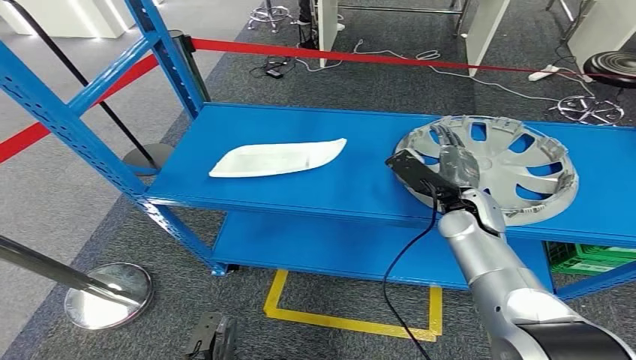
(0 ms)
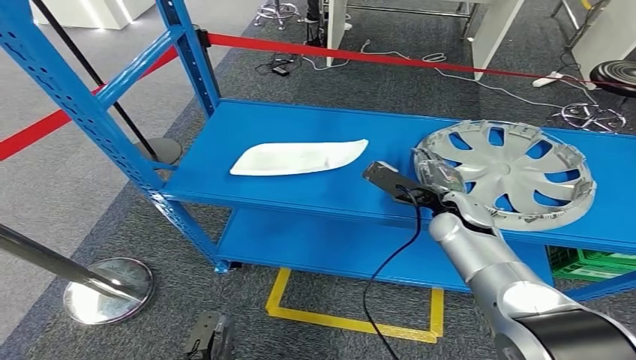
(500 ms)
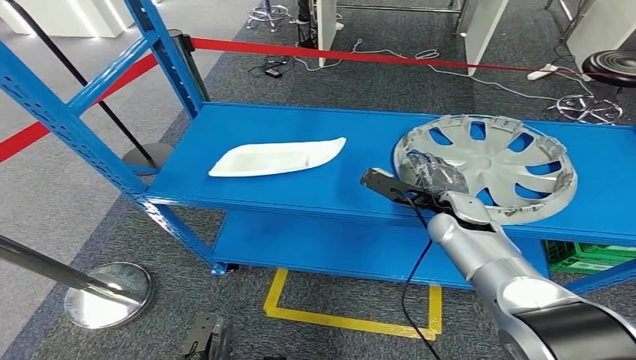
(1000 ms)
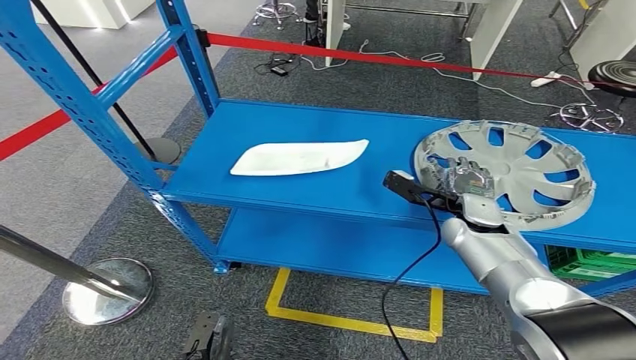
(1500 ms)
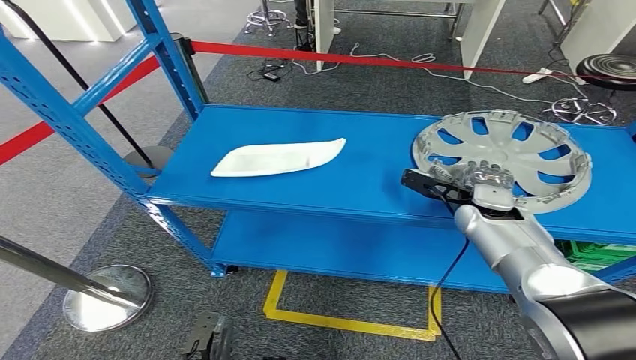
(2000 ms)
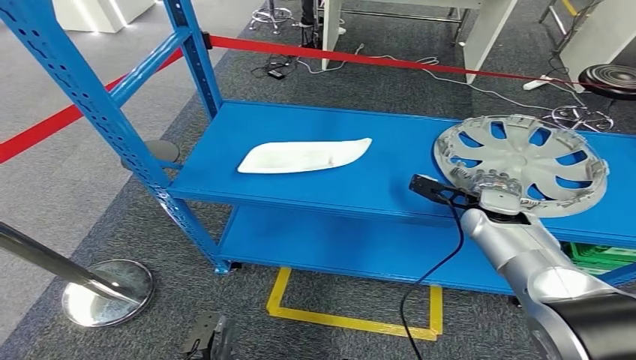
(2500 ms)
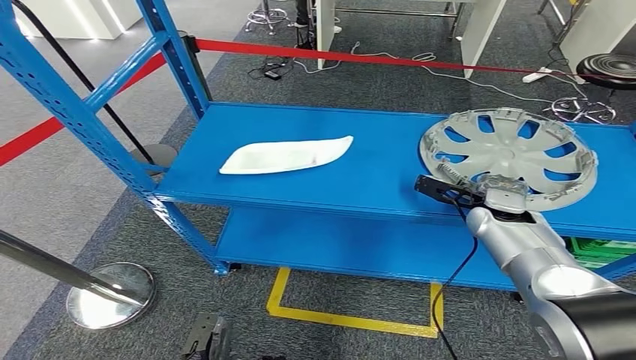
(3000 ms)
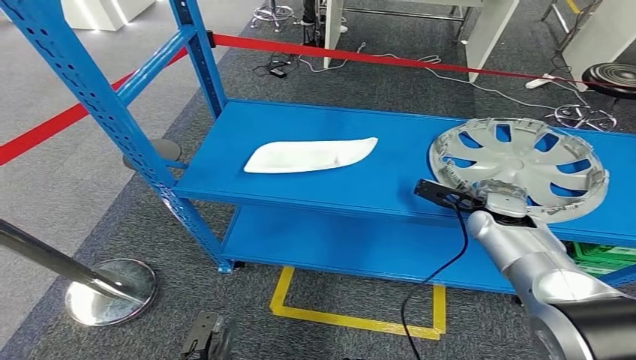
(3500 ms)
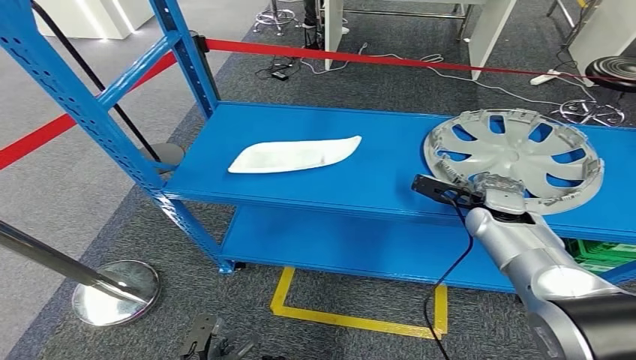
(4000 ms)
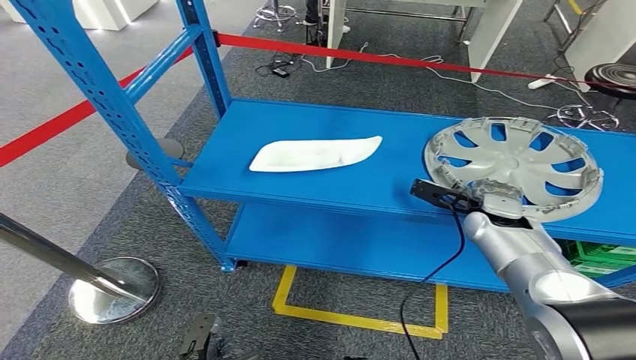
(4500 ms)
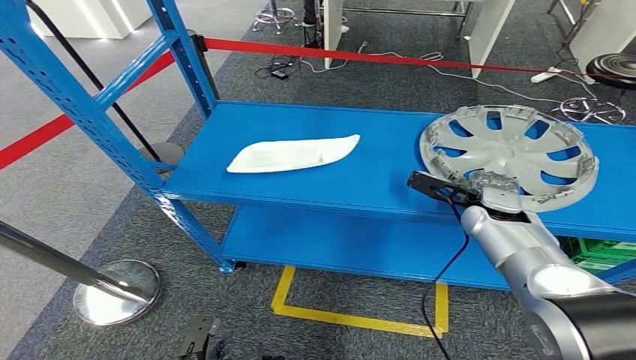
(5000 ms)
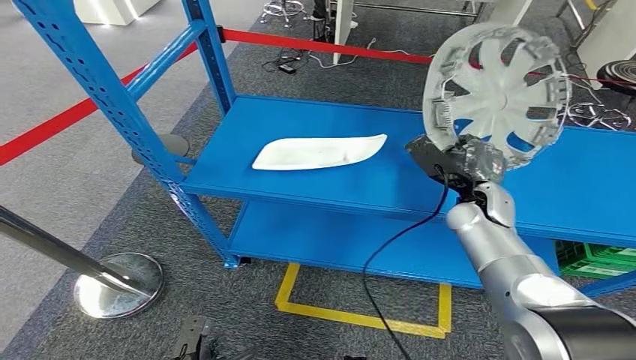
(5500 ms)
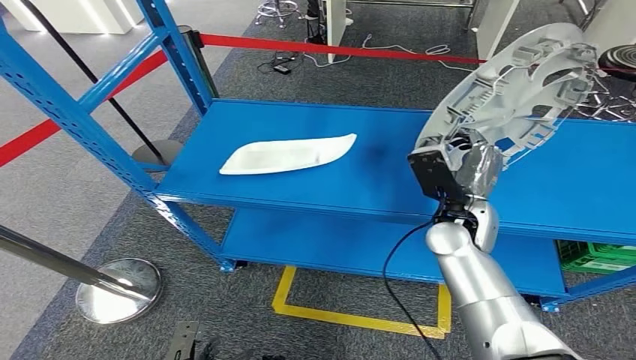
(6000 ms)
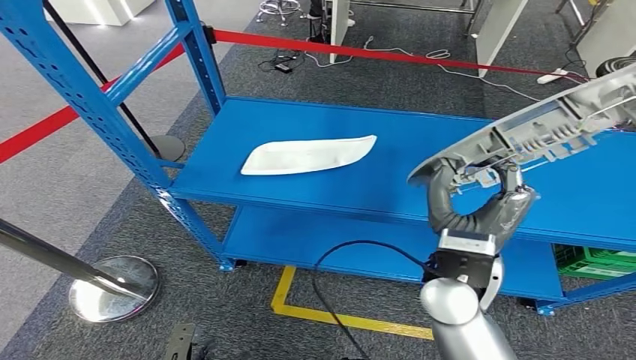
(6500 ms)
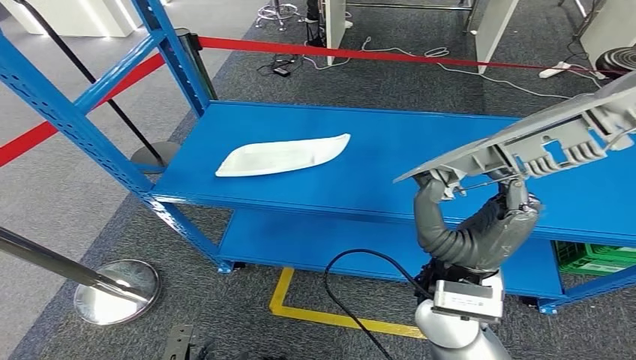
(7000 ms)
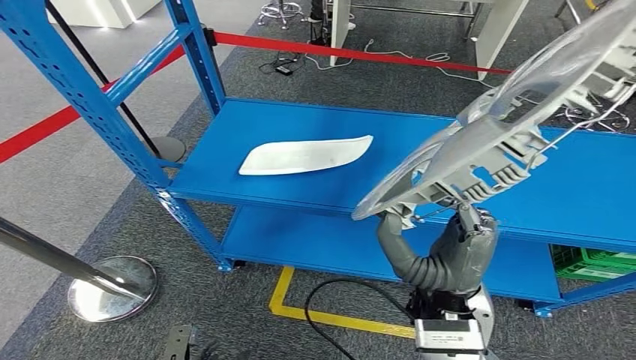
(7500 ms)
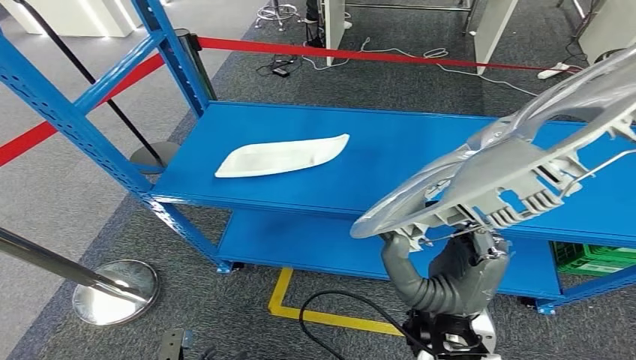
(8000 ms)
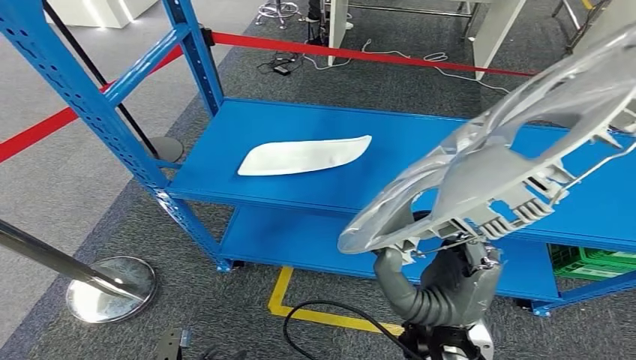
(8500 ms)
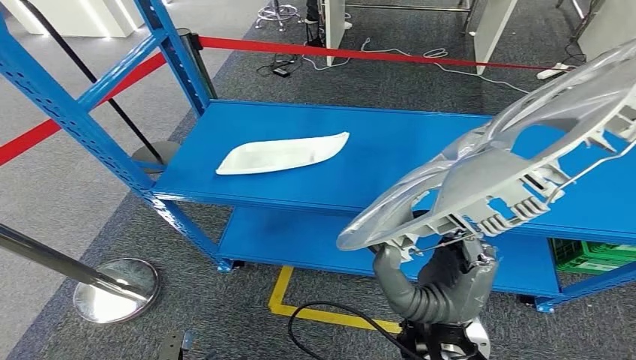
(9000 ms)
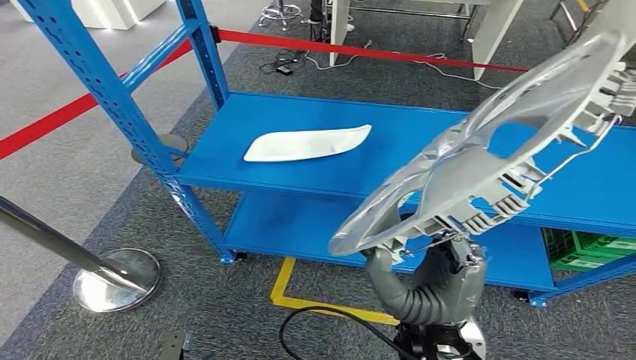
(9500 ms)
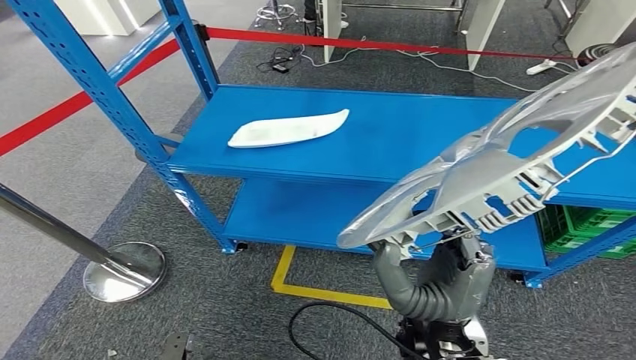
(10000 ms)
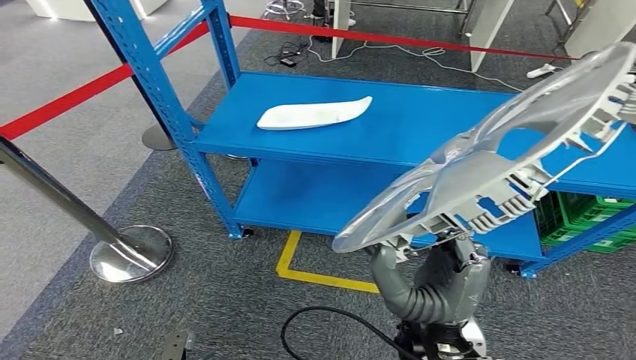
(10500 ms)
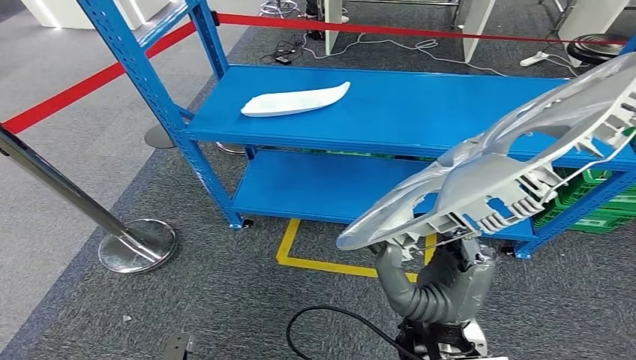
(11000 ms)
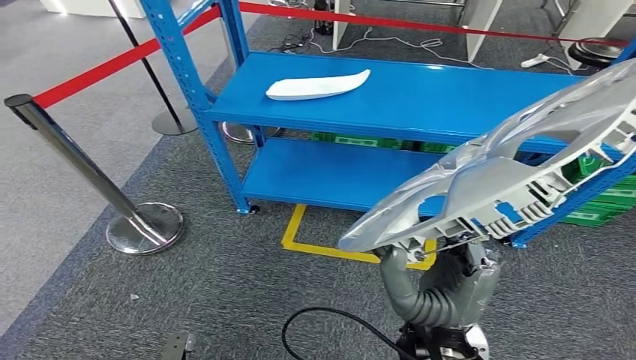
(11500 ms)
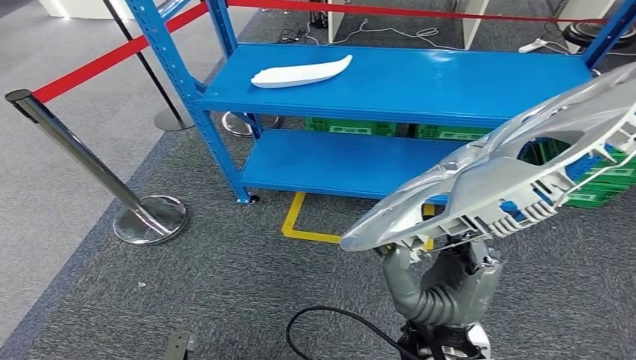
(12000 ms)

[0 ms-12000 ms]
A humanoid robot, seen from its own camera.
Step, 0 ms to 7000 ms: Pick up the small component from the shelf.

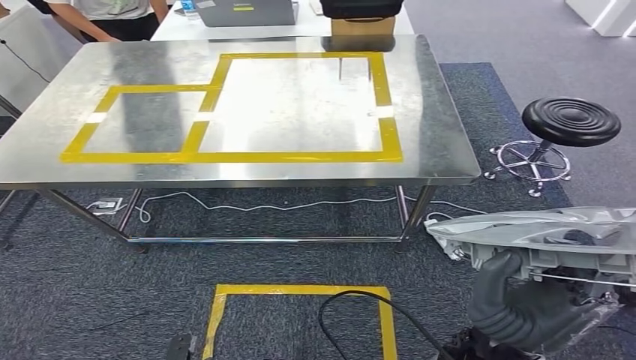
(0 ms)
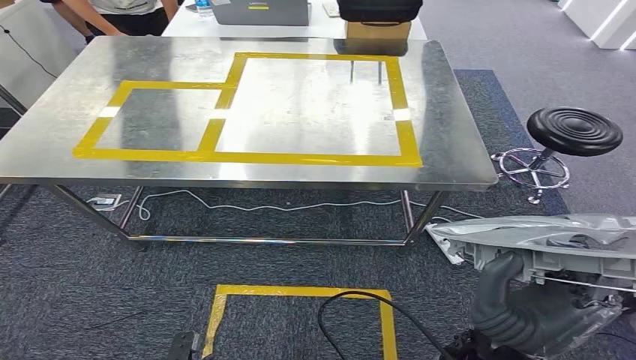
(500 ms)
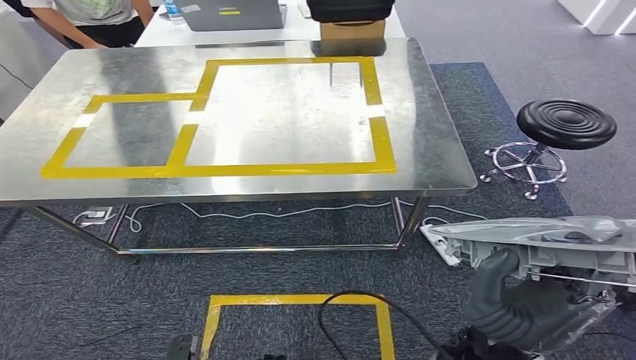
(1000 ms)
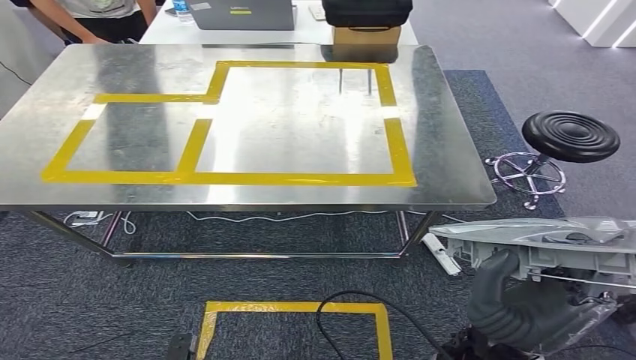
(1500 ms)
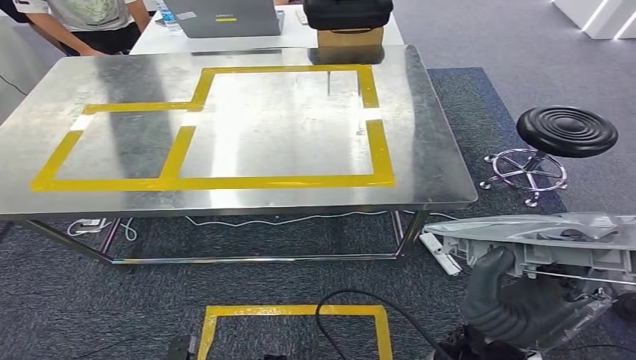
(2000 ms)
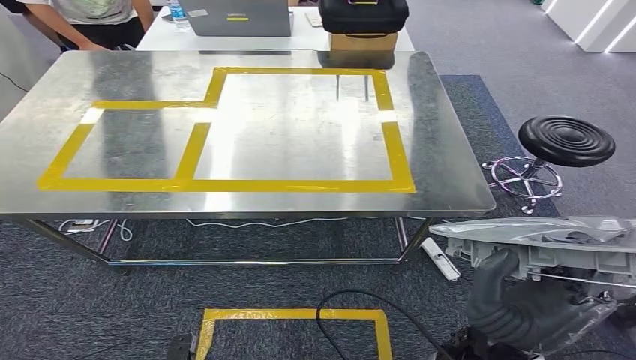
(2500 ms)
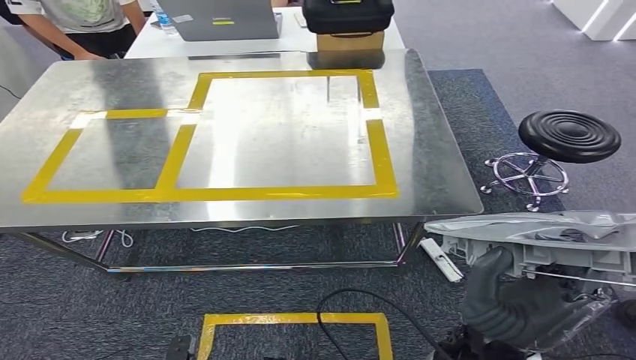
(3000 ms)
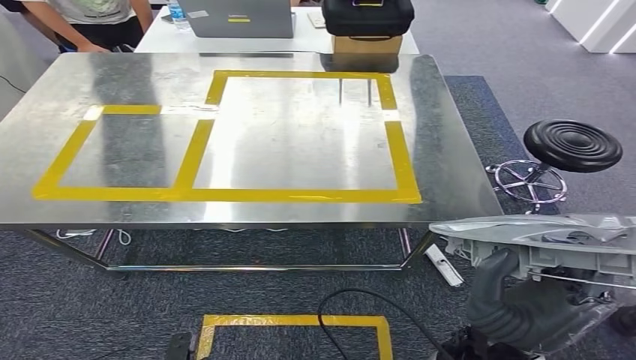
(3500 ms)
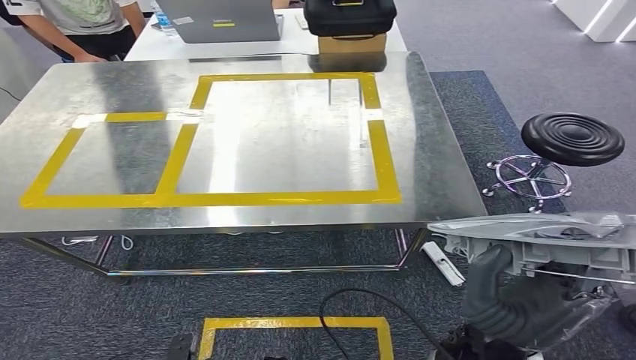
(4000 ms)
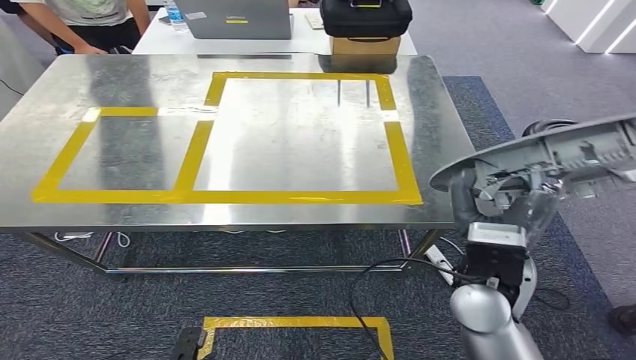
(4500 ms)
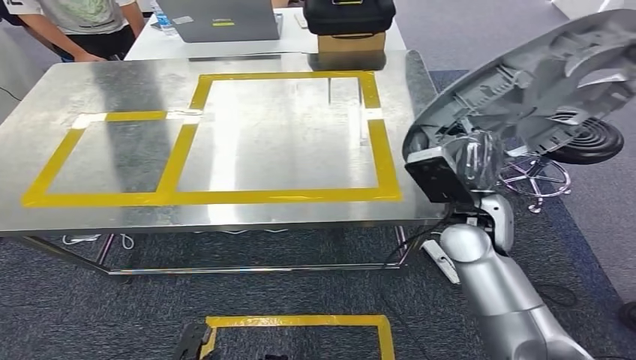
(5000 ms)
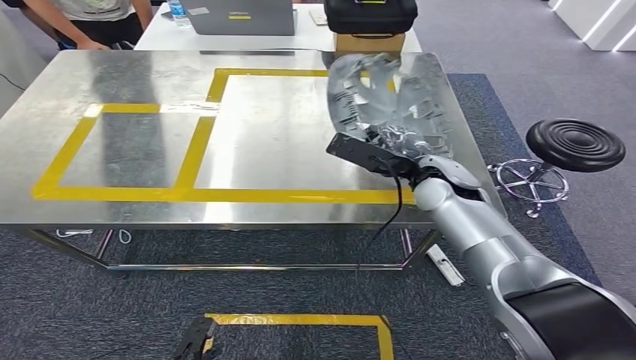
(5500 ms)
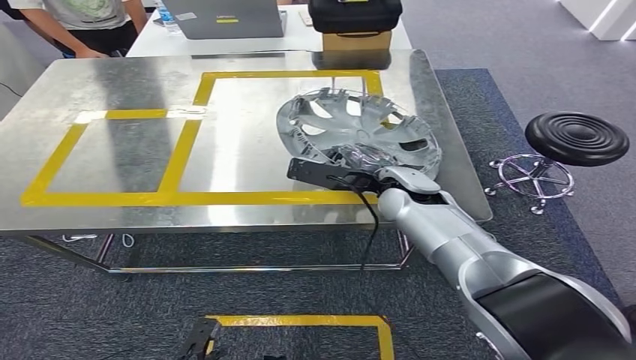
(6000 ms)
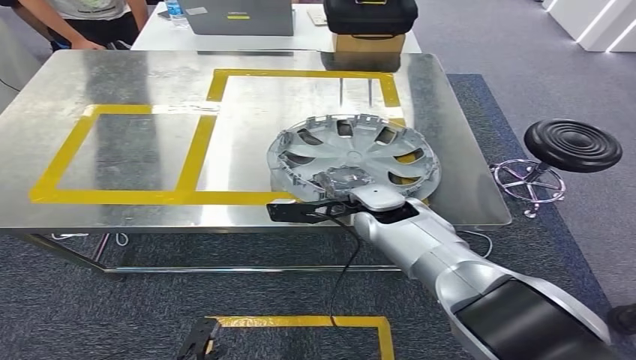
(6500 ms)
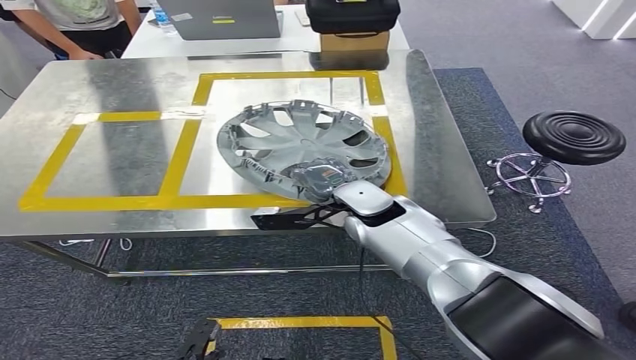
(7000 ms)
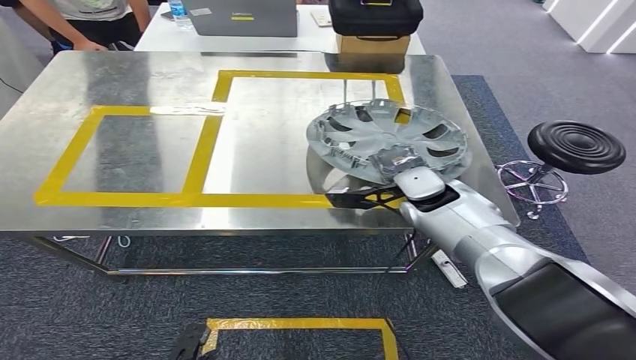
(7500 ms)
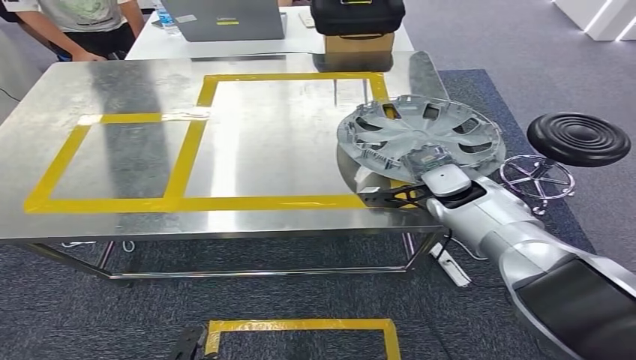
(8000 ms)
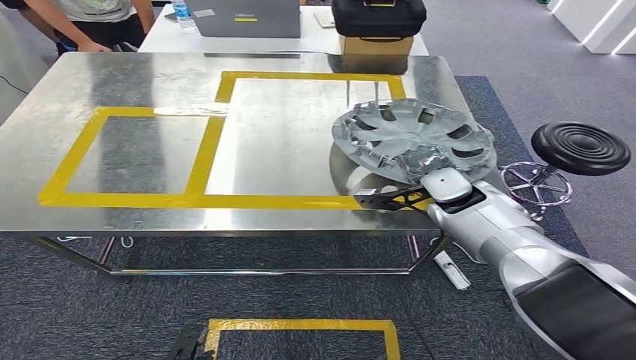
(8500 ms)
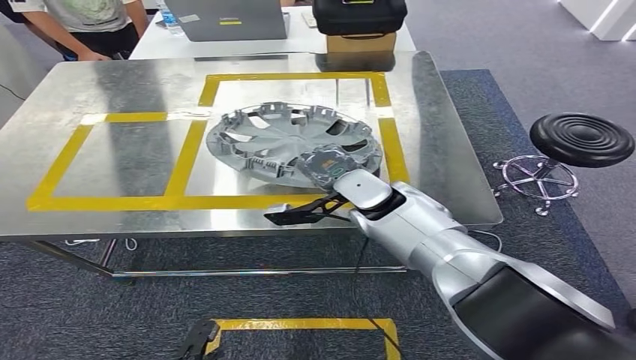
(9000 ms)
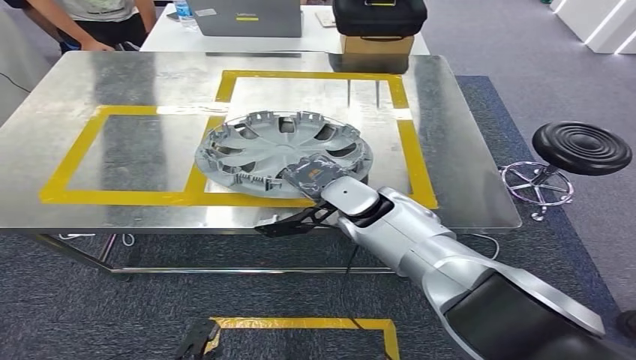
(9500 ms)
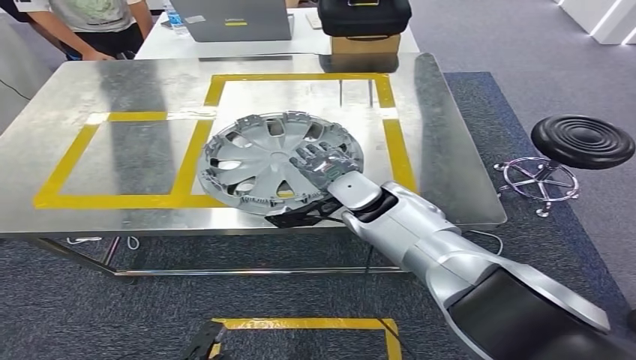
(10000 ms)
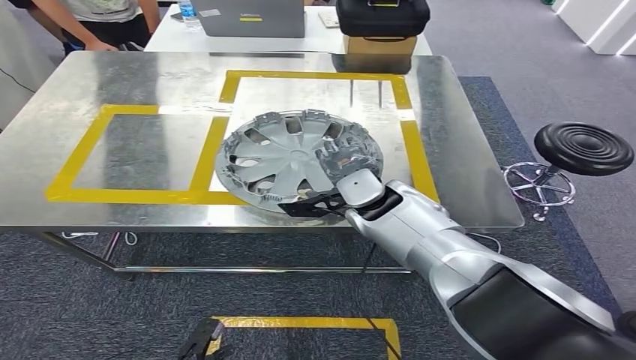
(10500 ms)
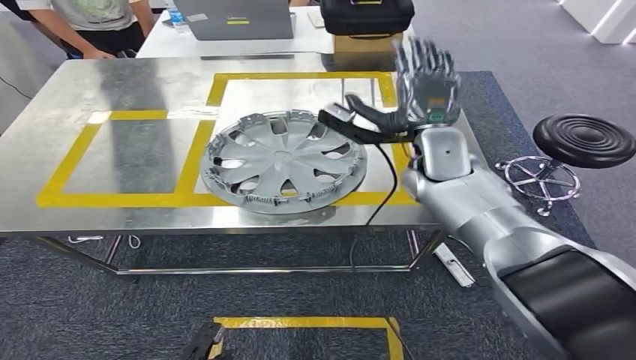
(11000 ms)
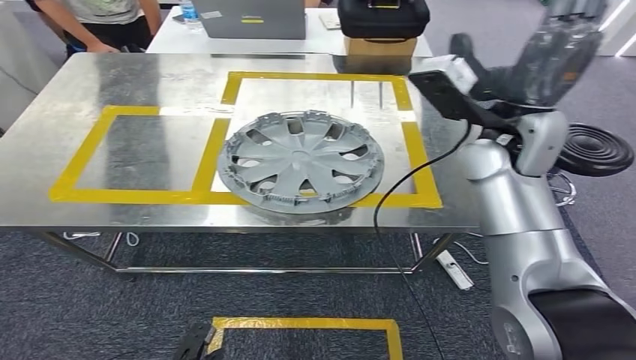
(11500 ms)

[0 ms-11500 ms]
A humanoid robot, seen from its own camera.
Step, 0 ms to 4000 ms: Move the small component to the workbench.
Step, 4500 ms to 8500 ms: Insert the small component into the corresponding slot on the workbench.
